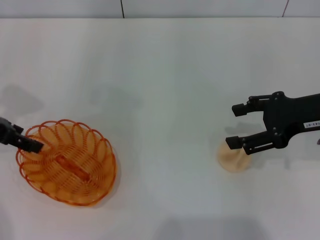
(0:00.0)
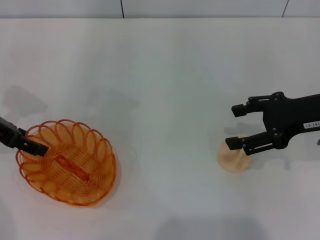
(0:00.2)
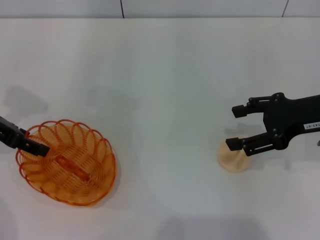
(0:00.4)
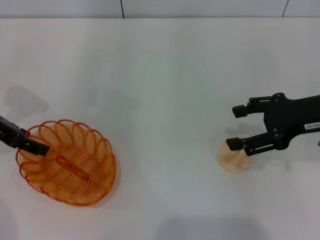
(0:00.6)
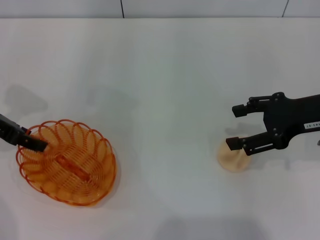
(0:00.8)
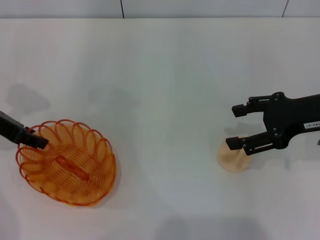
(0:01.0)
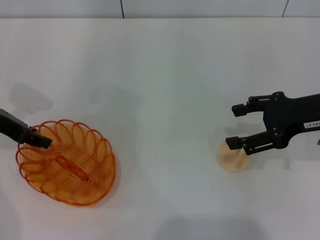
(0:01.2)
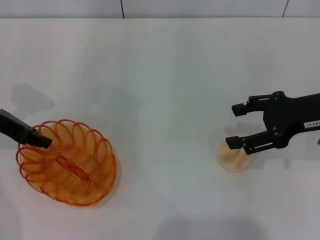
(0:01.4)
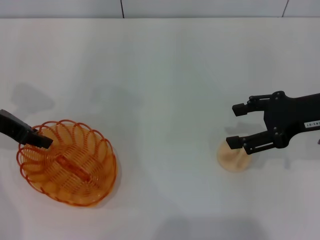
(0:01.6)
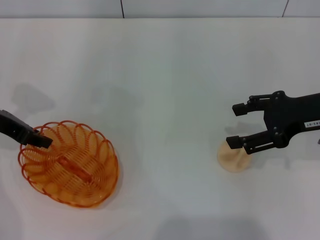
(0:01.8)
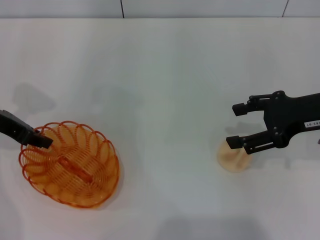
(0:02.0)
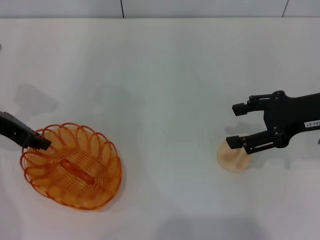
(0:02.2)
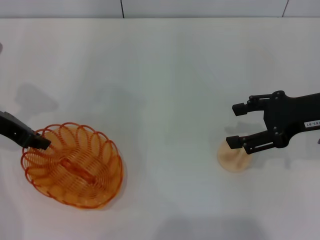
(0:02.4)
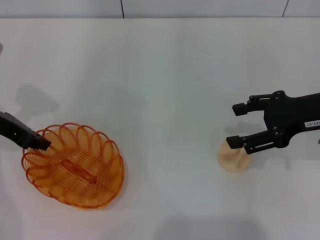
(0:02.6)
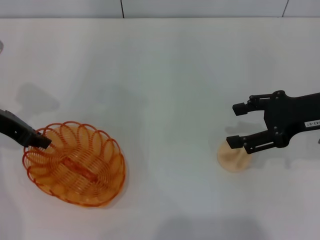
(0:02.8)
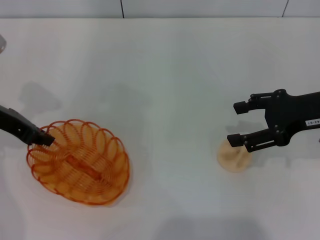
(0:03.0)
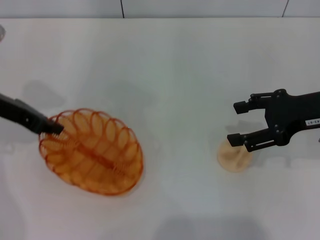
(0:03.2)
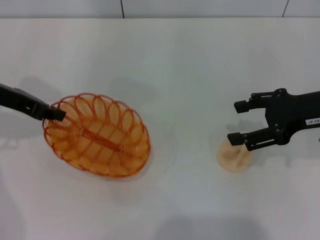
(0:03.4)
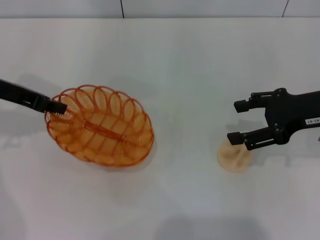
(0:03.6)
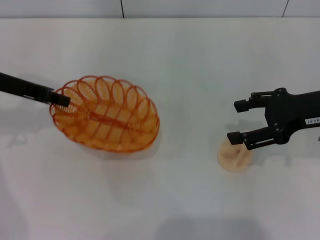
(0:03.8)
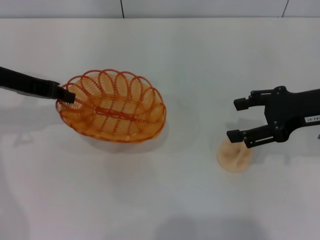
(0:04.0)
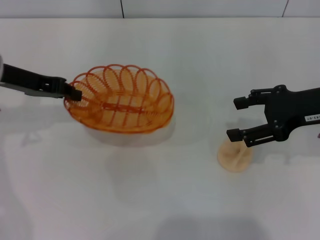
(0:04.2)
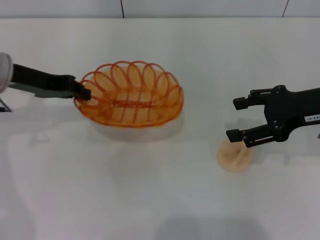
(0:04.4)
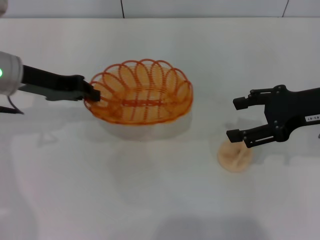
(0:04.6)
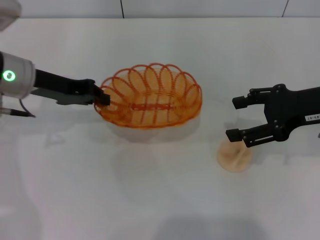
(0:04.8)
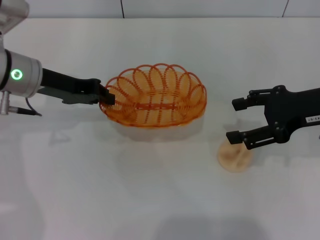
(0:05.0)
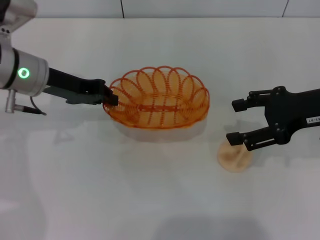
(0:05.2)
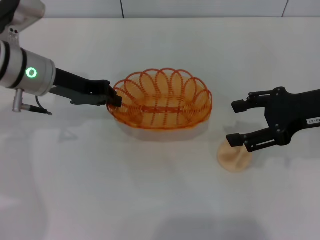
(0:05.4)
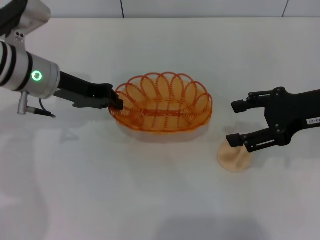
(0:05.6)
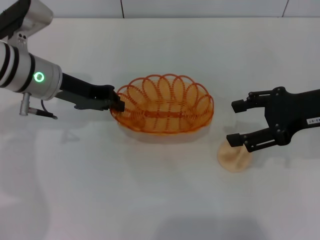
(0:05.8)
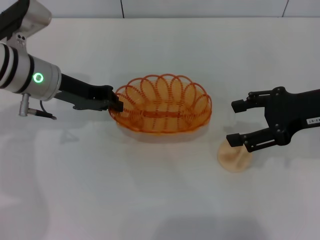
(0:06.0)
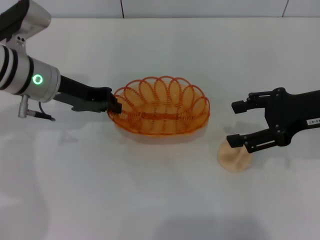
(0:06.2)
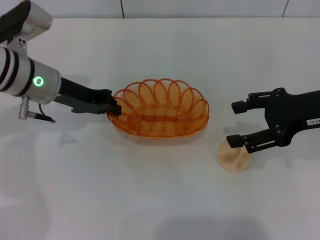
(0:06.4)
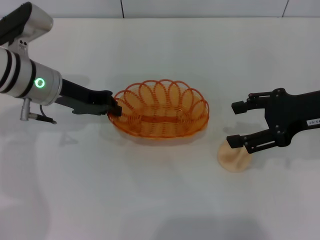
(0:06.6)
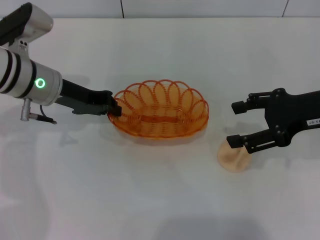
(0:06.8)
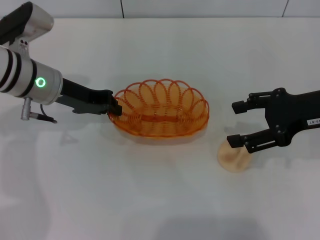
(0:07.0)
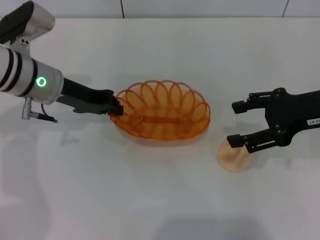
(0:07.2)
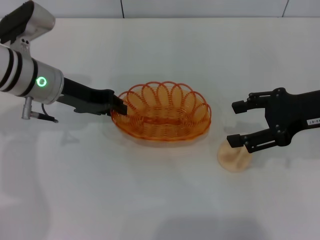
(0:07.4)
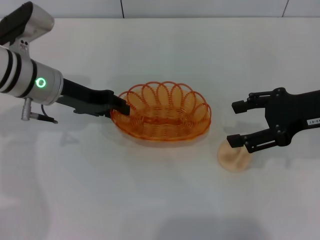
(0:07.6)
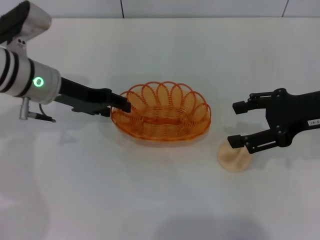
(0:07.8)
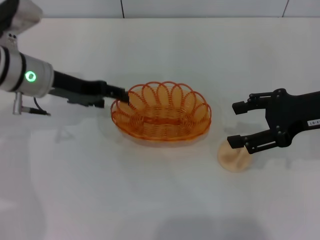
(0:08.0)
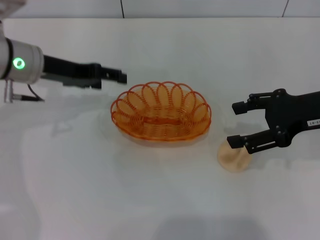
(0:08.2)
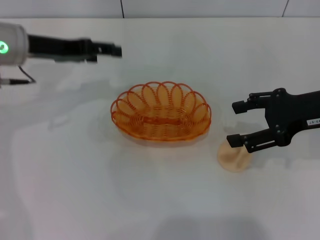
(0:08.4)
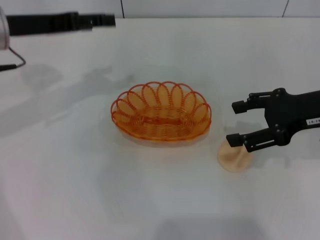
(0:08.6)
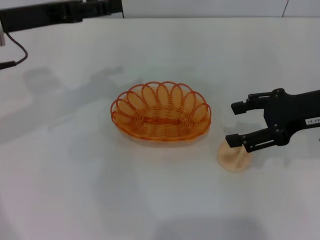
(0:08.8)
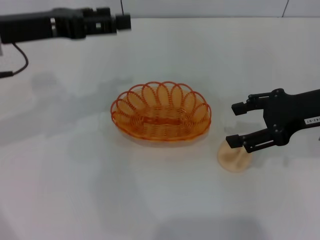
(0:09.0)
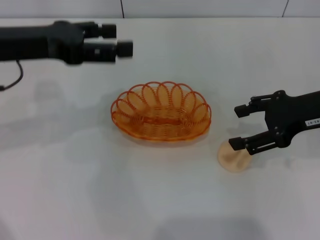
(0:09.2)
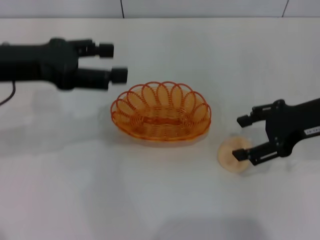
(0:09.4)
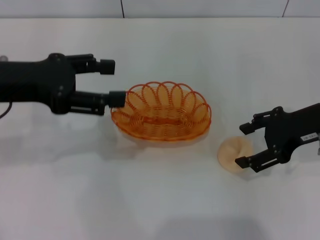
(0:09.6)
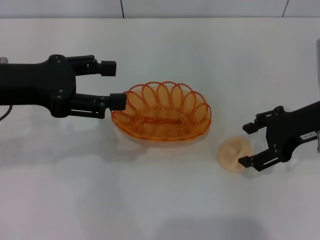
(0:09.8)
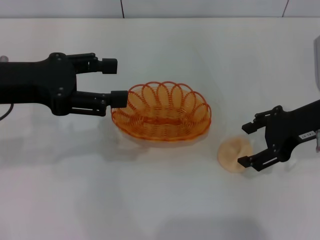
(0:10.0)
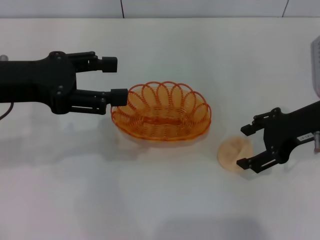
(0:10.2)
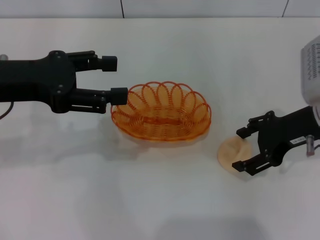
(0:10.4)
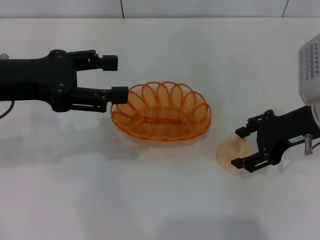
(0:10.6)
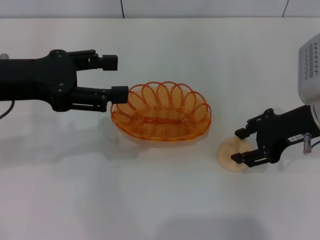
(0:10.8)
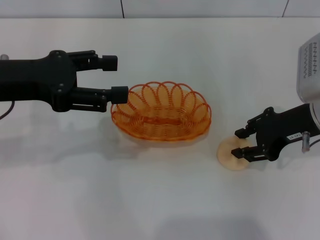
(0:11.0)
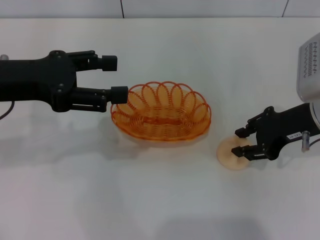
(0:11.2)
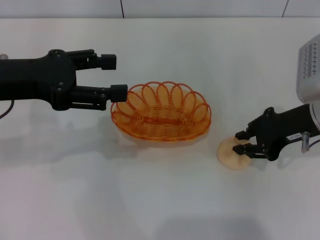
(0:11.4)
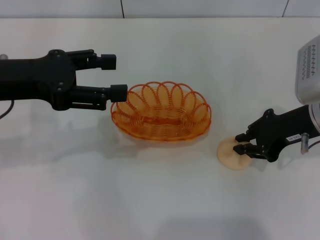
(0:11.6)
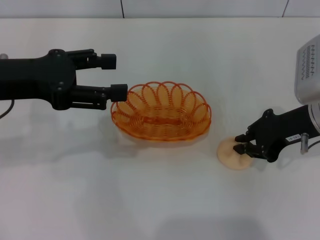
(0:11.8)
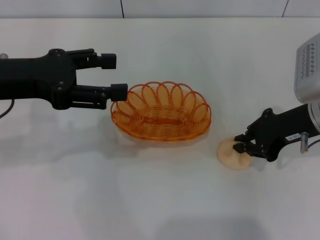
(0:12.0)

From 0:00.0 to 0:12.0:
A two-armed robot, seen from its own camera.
Step, from 0:00.0 to 0:04.2: Pick up the basket with the left gripper.
Step, from 0:04.4 to 0:08.6: Place the basket in the center of view with the left gripper.
From 0:00.0 to 0:01.6: The left gripper closes its fingers.
From 0:01.6 to 0:03.0: The left gripper closes.
From 0:04.4 to 0:06.0: The left gripper shifts roughly 5 cm to the right.
From 0:06.0 to 0:07.6: The two grippers keep their place.
From 0:07.6 to 0:09.0: The left gripper travels upward by approximately 10 cm, and opens up.
From 0:09.0 to 0:10.4: The left gripper shifts about 5 cm backward.
From 0:10.4 to 0:12.0: The right gripper closes.

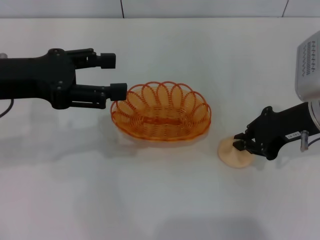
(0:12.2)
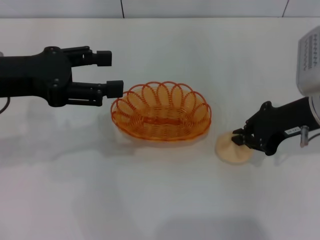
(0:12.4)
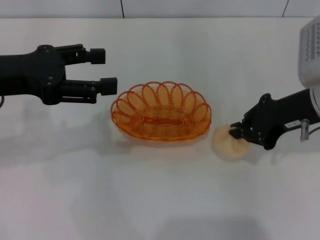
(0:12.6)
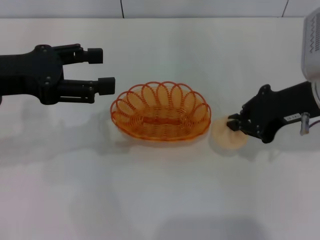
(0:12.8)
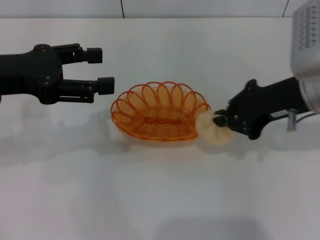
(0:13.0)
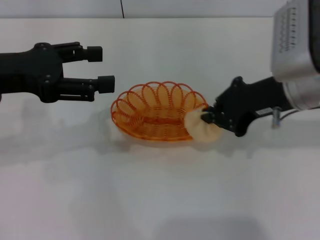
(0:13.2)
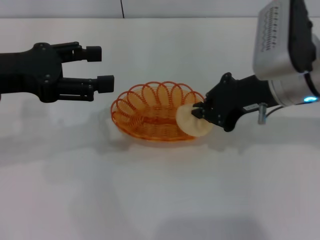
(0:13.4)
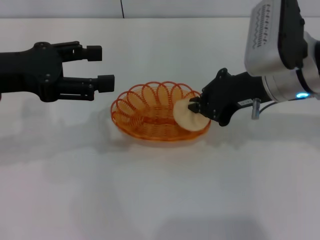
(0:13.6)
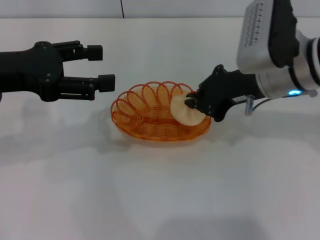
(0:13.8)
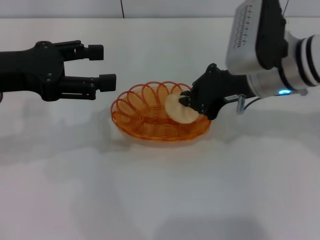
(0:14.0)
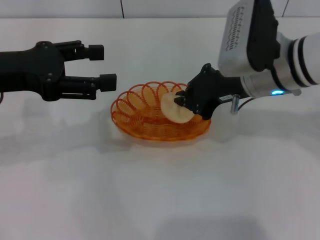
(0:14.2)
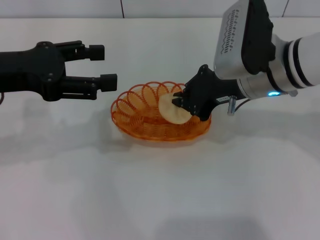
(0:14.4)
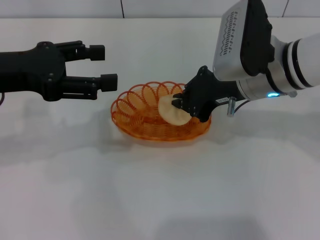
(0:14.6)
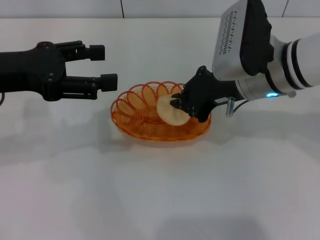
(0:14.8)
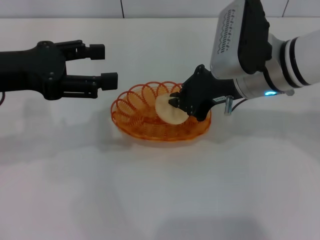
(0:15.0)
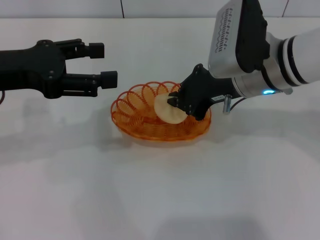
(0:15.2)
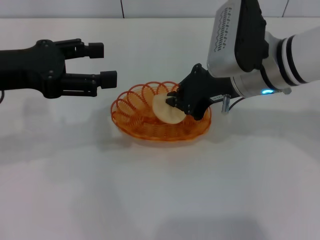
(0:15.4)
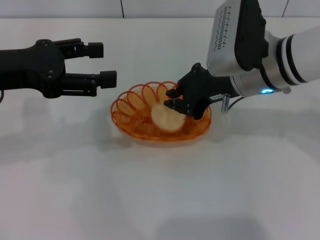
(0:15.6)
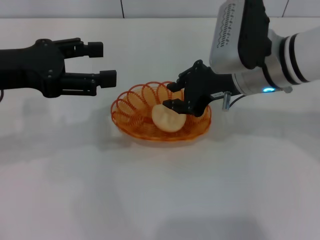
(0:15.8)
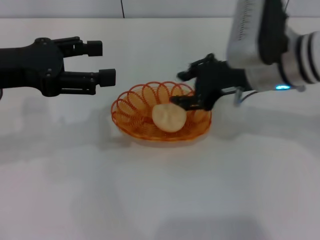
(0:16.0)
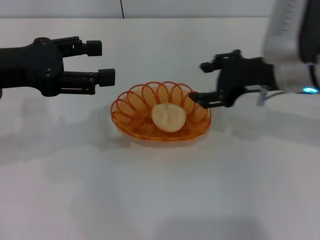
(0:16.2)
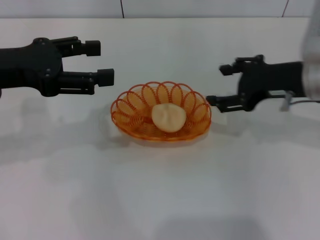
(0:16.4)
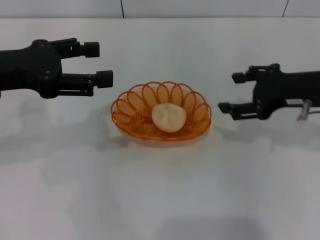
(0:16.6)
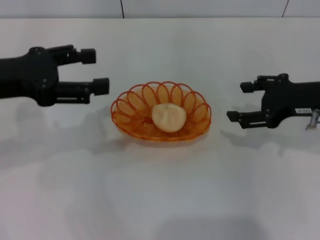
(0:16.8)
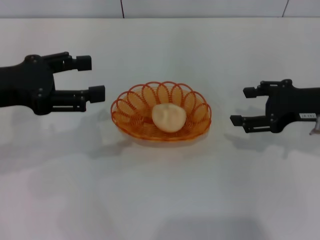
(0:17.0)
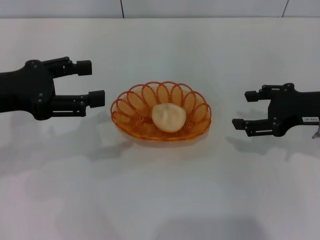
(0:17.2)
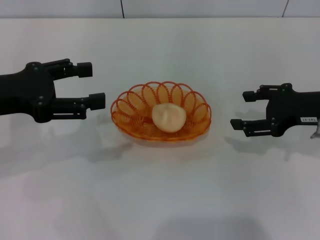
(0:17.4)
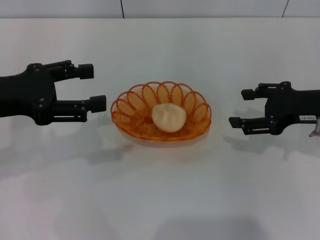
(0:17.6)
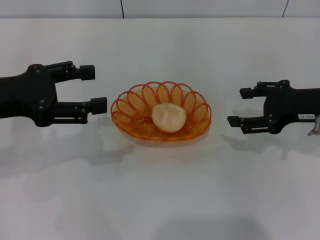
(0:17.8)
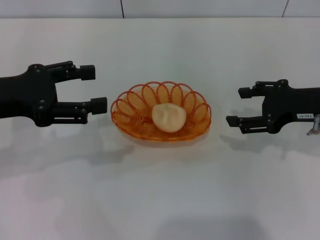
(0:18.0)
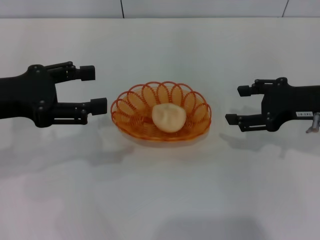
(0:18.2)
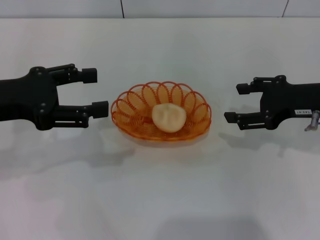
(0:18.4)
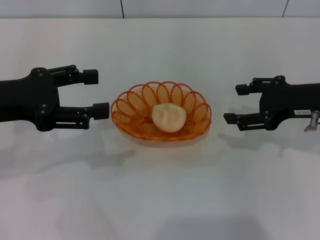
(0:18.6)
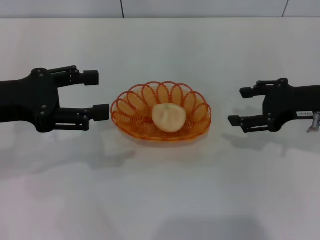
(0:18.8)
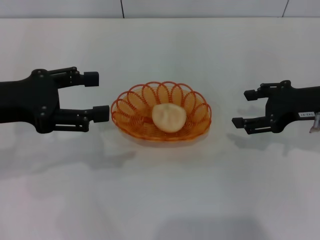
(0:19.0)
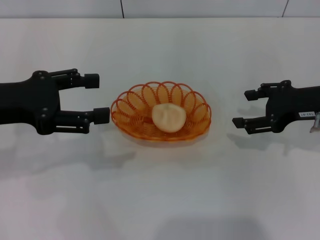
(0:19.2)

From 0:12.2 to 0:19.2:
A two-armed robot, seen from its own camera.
Step, from 0:13.4 to 0:17.6: Place the egg yolk pastry into the basket with the right gripper.
From 0:12.2 to 0:13.6: The right gripper travels to the left by some 5 cm.
From 0:13.6 to 0:15.0: The grippers make only small movements.
From 0:15.0 to 0:16.4: The right gripper heads to the right, covering approximately 10 cm, and opens up.
From 0:16.4 to 0:17.8: The right gripper moves approximately 5 cm.
From 0:17.8 to 0:19.2: The grippers stay close to where they were, moving slightly.

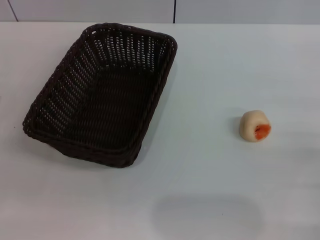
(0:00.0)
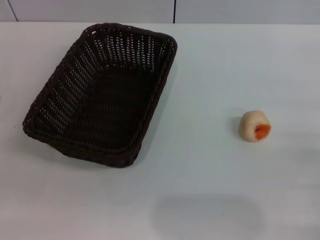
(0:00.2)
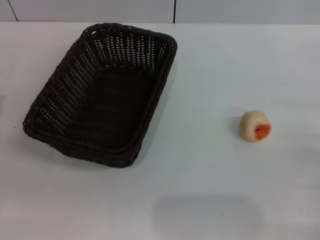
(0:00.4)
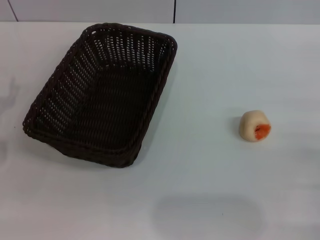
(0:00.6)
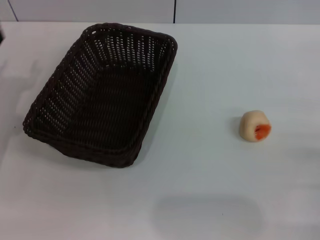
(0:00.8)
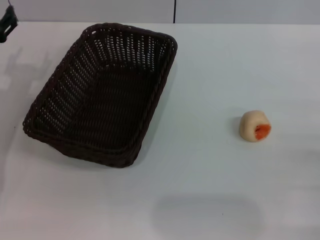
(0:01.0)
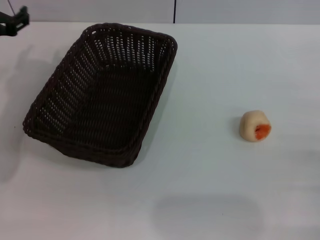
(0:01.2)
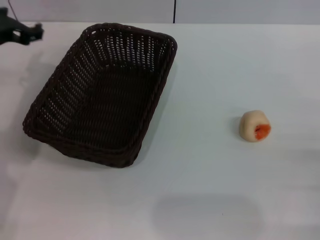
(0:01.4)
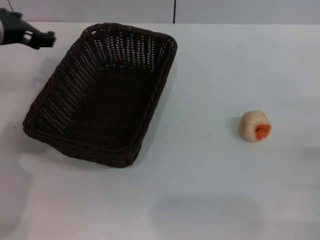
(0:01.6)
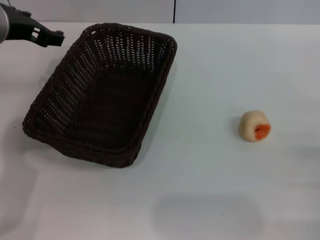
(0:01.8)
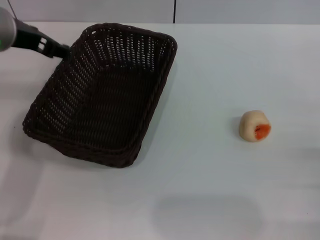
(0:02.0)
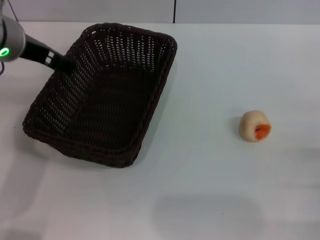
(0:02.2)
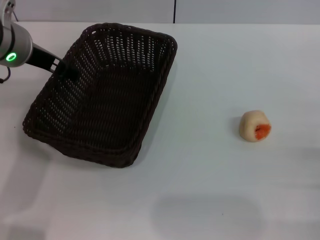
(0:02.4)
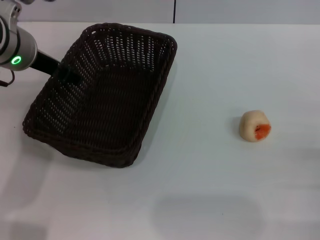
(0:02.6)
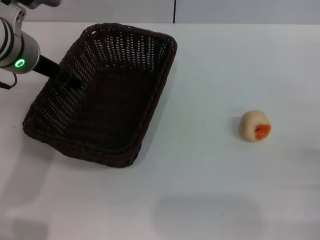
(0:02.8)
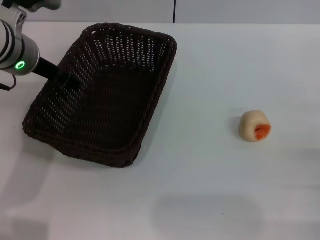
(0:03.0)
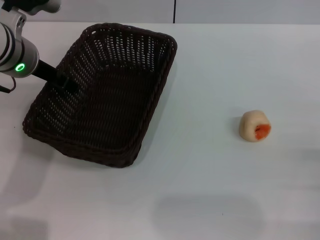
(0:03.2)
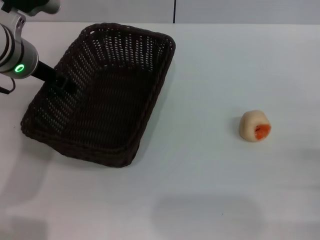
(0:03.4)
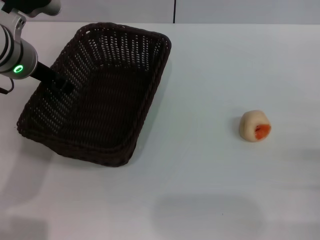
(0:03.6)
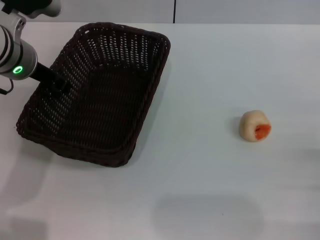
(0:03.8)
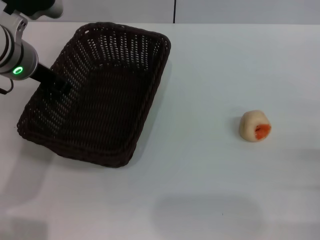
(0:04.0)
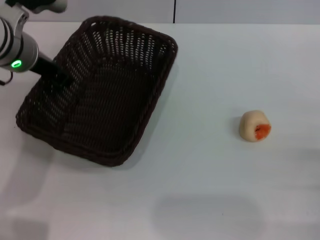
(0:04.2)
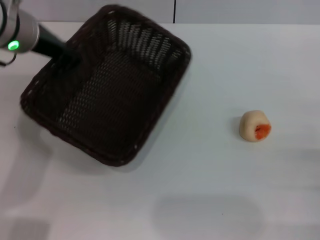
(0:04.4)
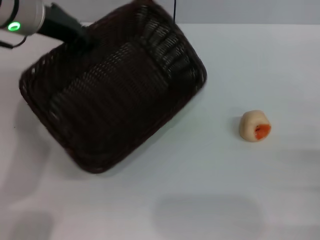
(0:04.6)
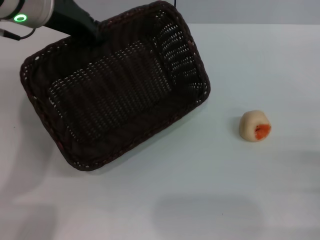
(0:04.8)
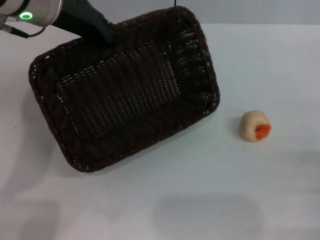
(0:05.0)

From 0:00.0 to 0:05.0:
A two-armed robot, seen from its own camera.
From 0:00.0 to 0:01.6: The left gripper moves upward, forward and to the right, about 25 cm.
From 0:03.4 to 0:05.0: The left gripper heads upward, covering roughly 10 cm, and closes its fingers.
